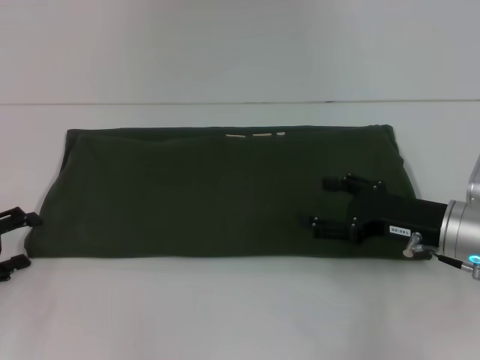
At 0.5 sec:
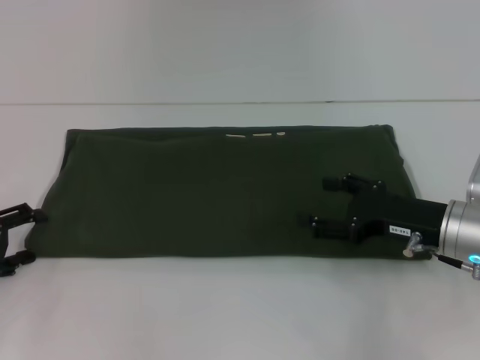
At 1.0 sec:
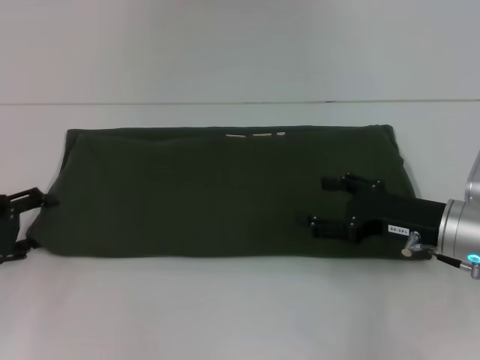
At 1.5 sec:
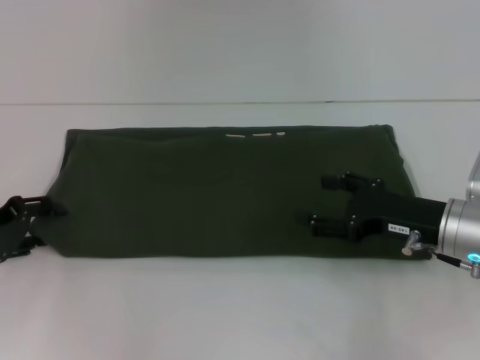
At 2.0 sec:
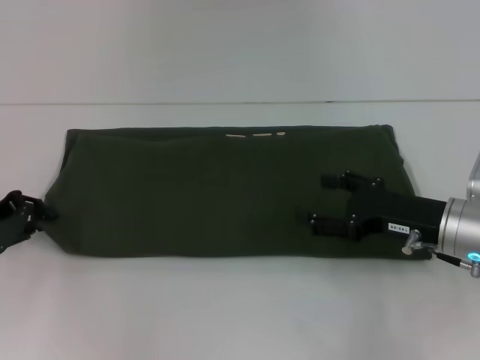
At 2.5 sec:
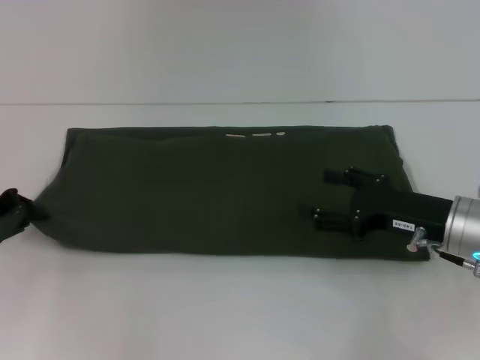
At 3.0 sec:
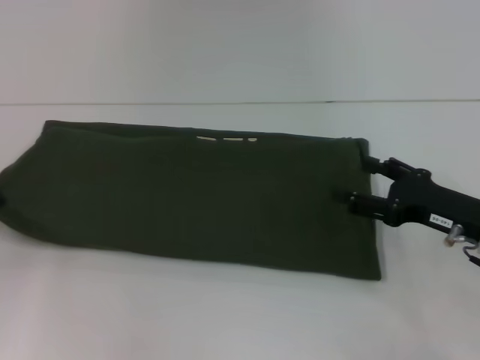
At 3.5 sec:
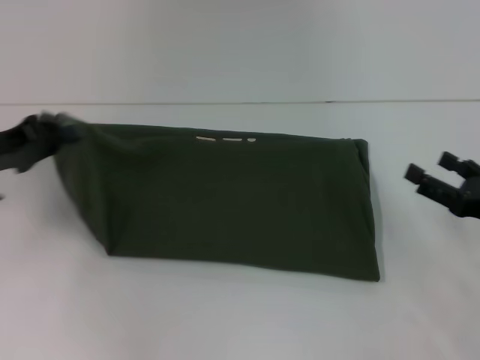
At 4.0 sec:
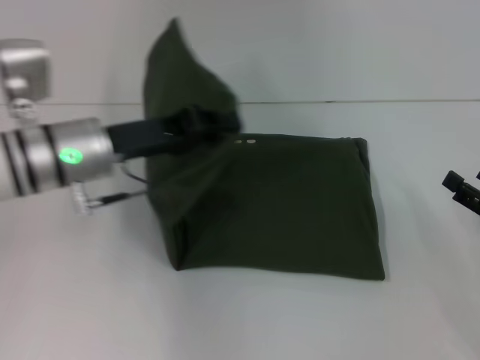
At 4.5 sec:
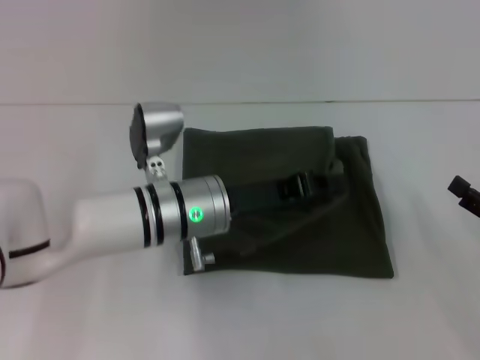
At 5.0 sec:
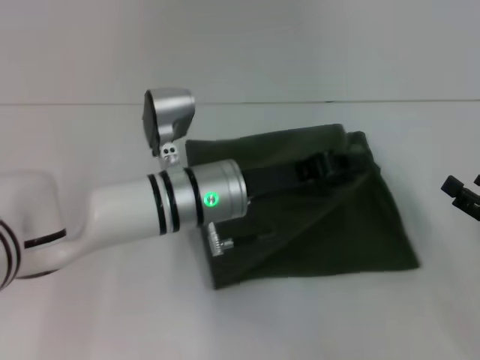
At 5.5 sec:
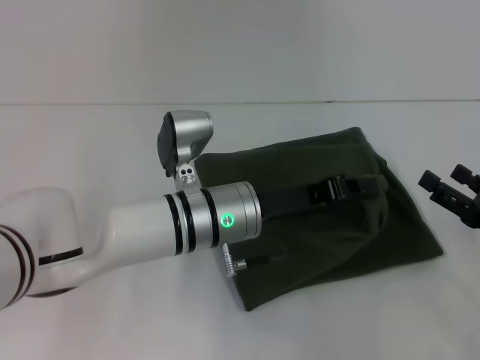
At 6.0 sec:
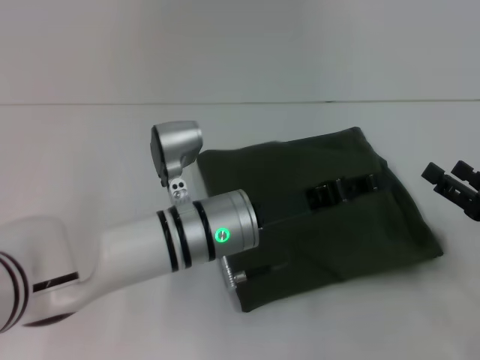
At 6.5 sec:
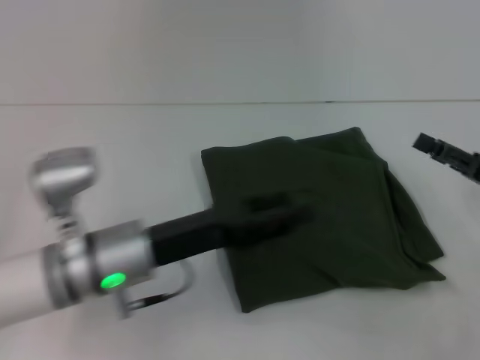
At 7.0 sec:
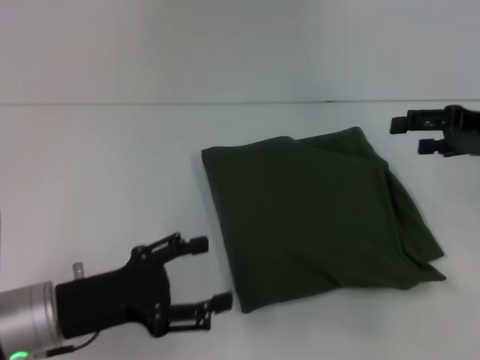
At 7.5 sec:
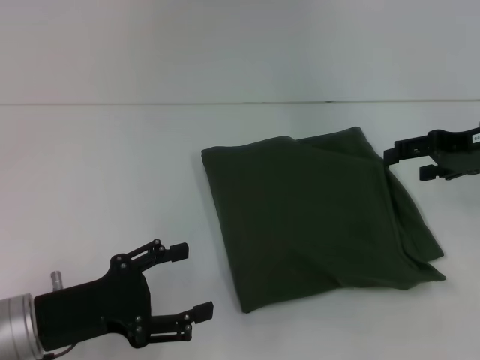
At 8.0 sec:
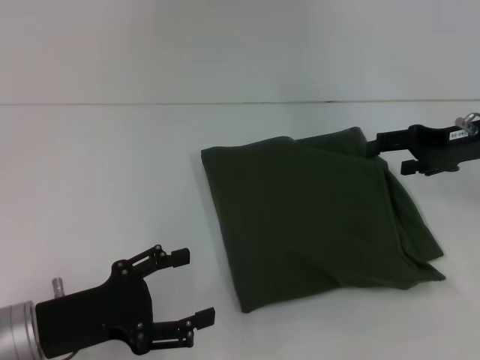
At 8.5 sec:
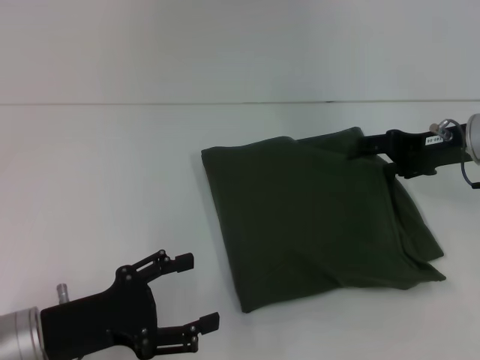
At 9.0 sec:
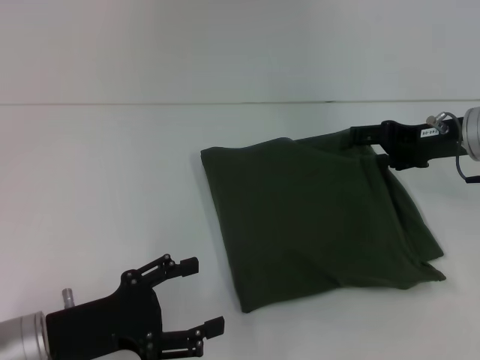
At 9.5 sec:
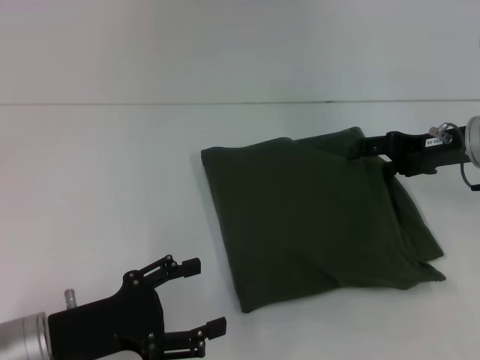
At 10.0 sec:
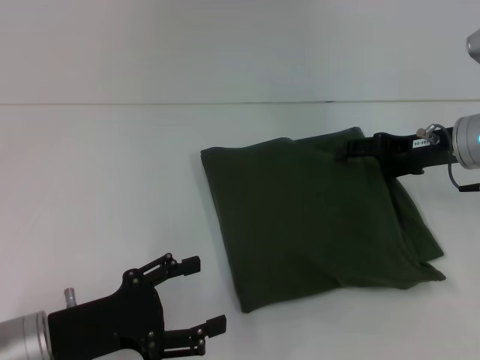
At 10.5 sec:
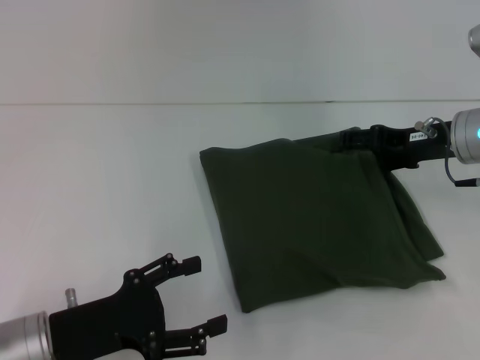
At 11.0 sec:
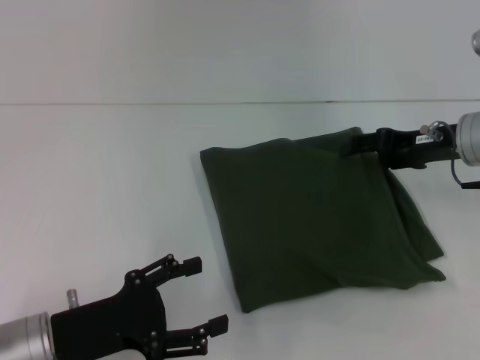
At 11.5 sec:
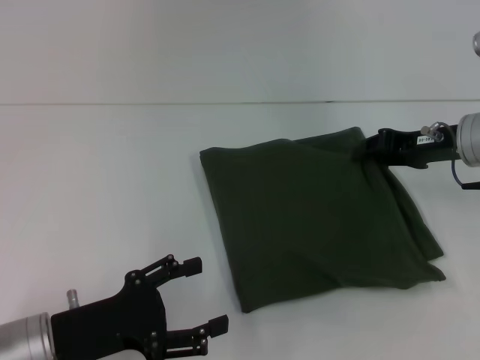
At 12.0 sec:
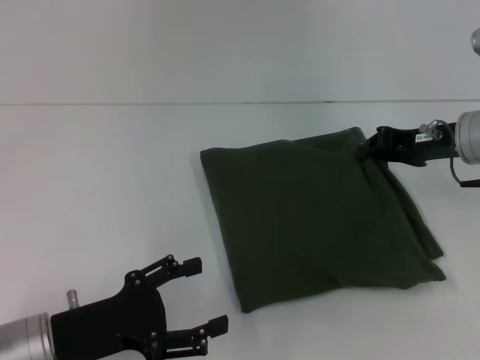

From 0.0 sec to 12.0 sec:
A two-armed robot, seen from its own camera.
Step, from 0.0 sec to 6.0 sec: Fold the clothes with your left hand.
From 0.0 sec to 2.0 sec: The left gripper changes place by about 5 cm, and closes its fingers.
From 2.0 sec to 4.0 sec: The left gripper goes approximately 15 cm to the right, and closes. Meanwhile the right gripper moves to the right and backward, some 15 cm.
From 4.0 sec to 6.0 sec: The left gripper is displaced to the right and downward by approximately 15 cm.
From 6.0 sec to 8.0 sec: The left gripper travels to the left and backward by about 20 cm, and opens; the right gripper moves forward and upward, roughly 15 cm.
From 8.0 sec to 10.0 sec: The grippers stay close to where they were, moving slightly.
From 10.0 sec to 12.0 sec: The right gripper closes its fingers.

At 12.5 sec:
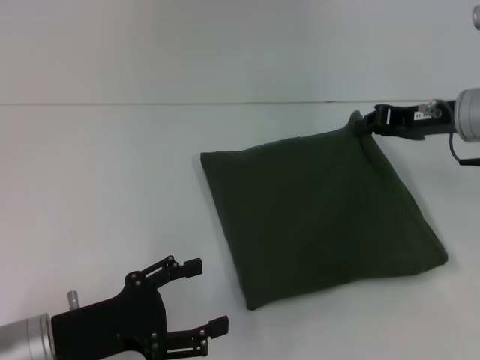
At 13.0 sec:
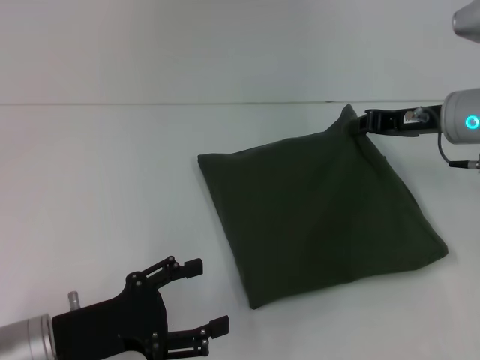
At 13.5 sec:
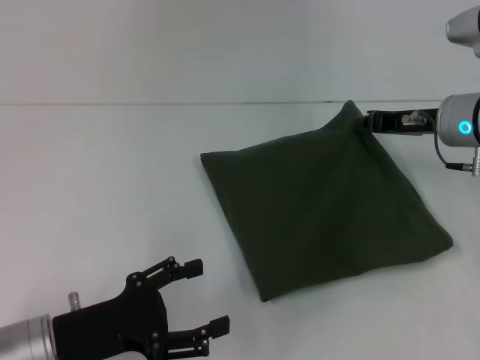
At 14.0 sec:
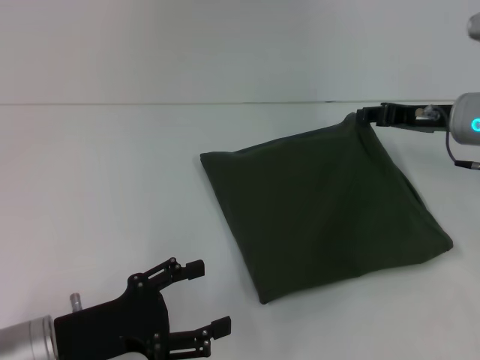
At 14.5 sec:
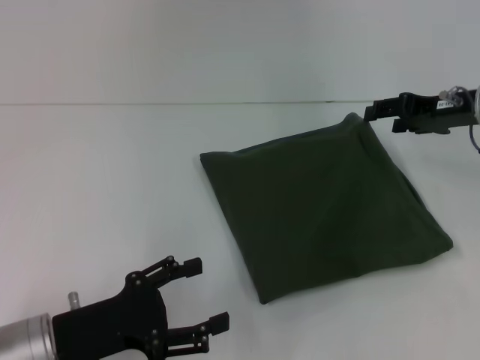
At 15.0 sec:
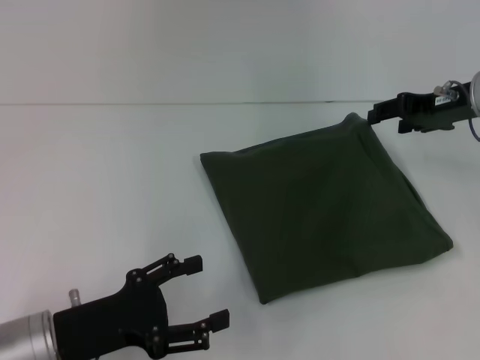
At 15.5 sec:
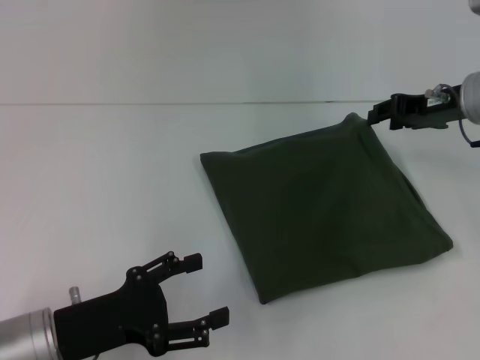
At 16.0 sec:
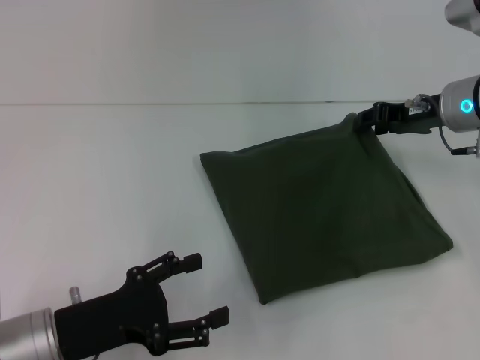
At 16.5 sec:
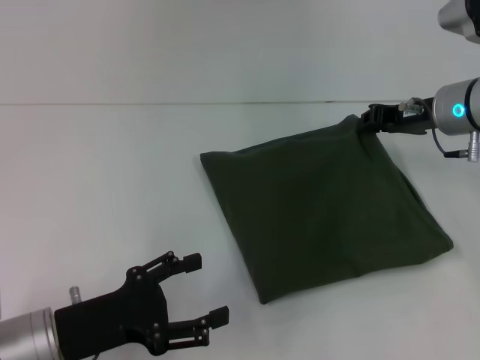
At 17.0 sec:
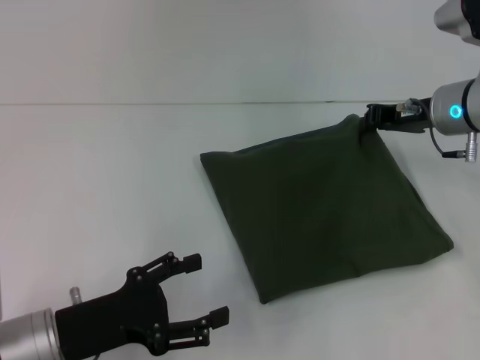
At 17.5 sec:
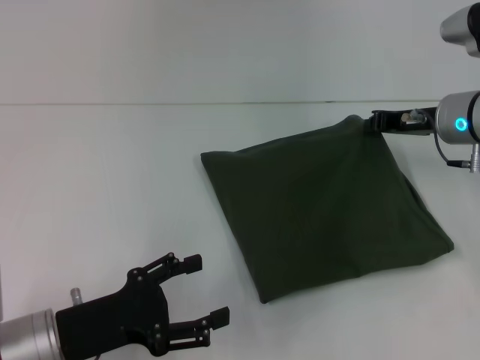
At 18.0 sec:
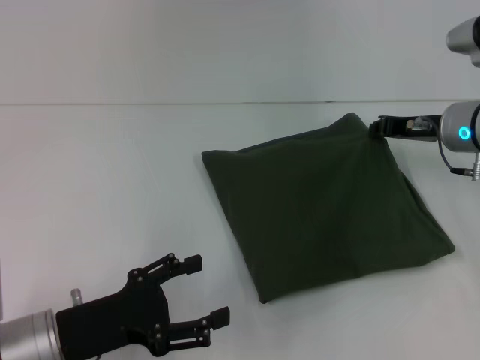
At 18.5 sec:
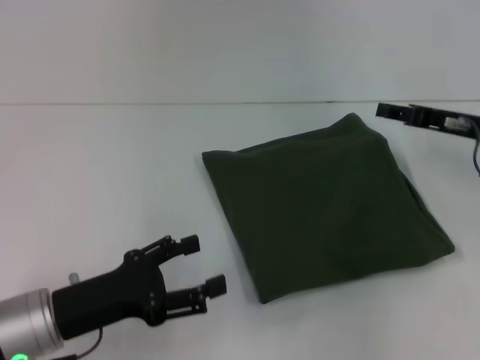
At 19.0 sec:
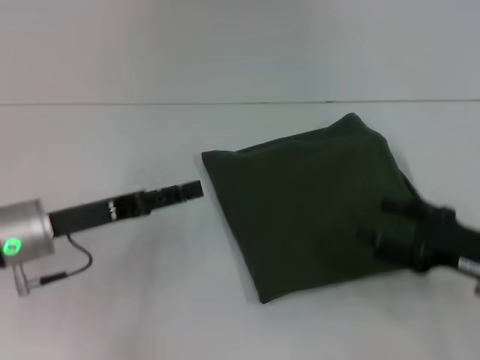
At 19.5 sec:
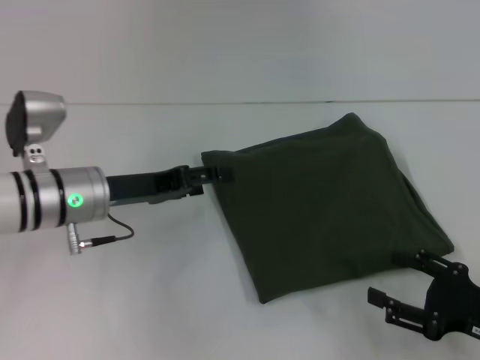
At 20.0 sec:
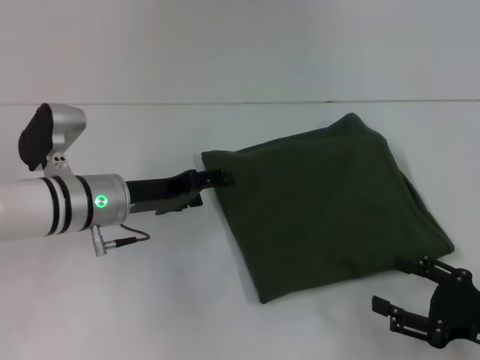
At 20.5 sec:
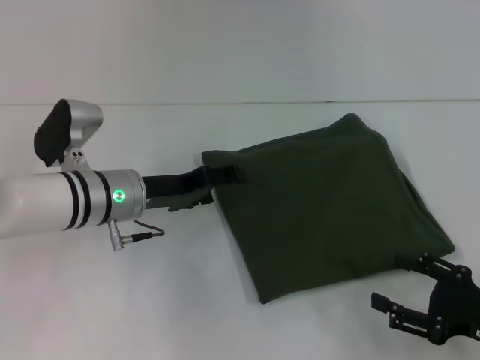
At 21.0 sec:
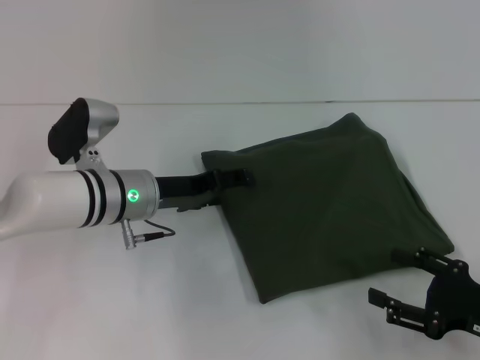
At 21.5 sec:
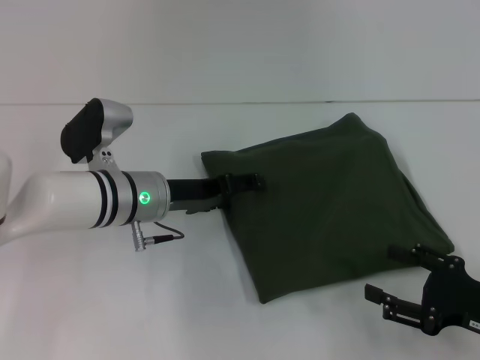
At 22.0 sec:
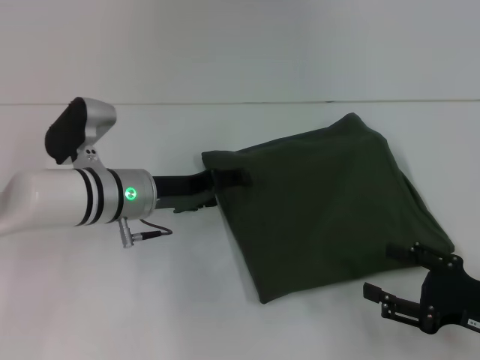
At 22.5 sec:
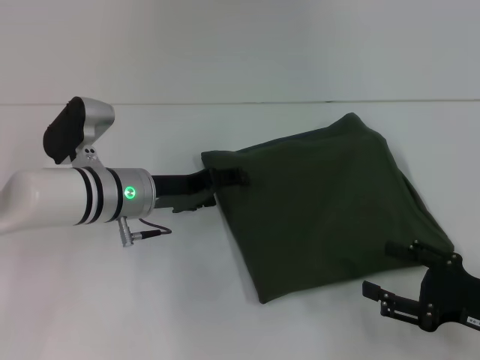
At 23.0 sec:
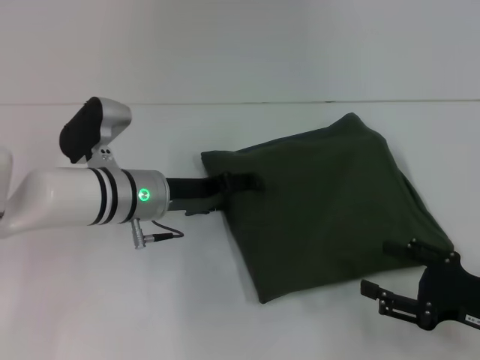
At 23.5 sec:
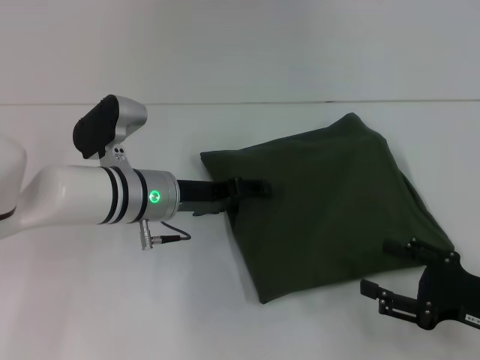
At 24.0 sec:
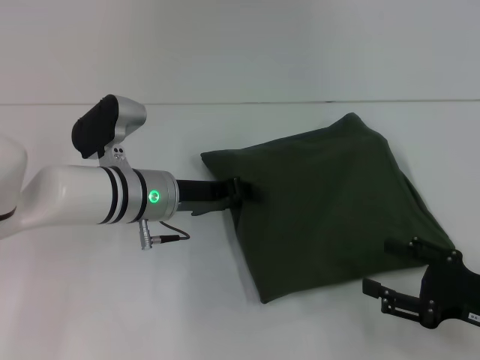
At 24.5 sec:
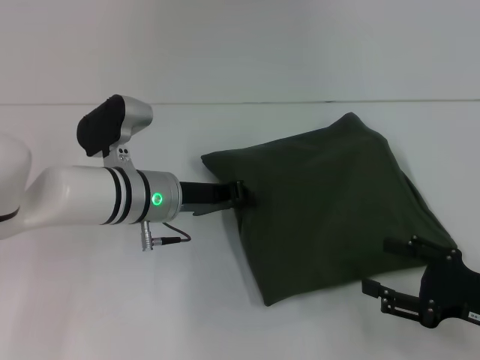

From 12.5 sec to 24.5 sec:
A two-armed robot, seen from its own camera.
From 12.5 sec to 14.5 sec: The right gripper opens its fingers.
From 14.5 sec to 16.5 sec: The right gripper closes its fingers.
From 16.5 sec to 18.5 sec: The right gripper shifts by roughly 5 cm.
From 18.5 sec to 20.5 sec: The right gripper goes about 20 cm backward and downward, and opens its fingers, while the left gripper goes some 15 cm forward and to the right.
From 20.5 sec to 22.5 sec: The grippers move only a little.
From 22.5 sec to 24.5 sec: The left gripper closes.

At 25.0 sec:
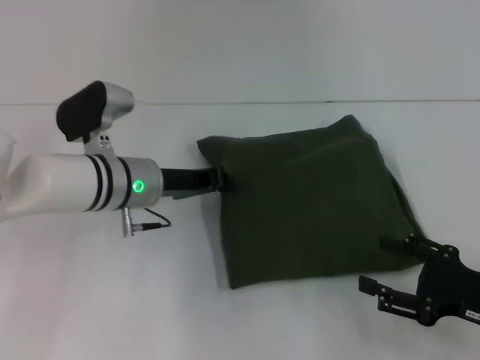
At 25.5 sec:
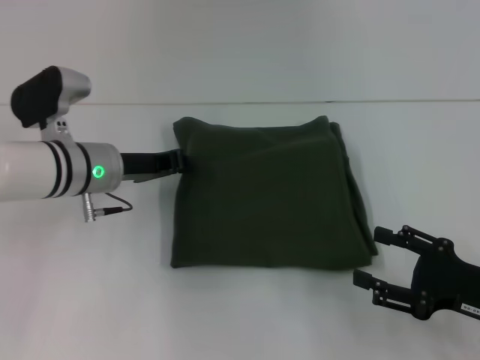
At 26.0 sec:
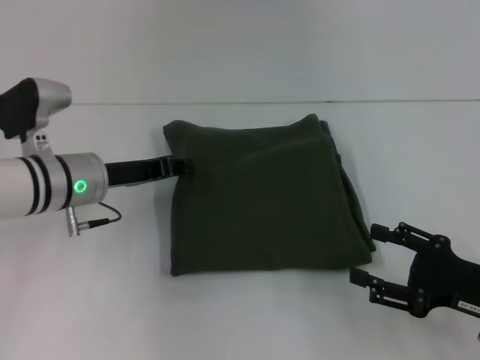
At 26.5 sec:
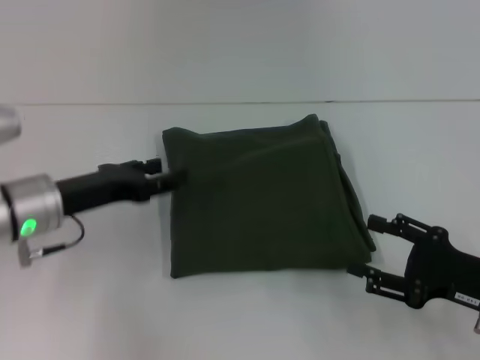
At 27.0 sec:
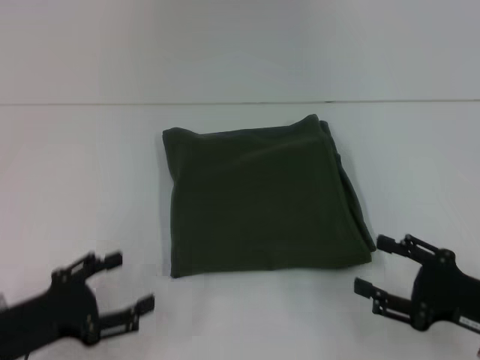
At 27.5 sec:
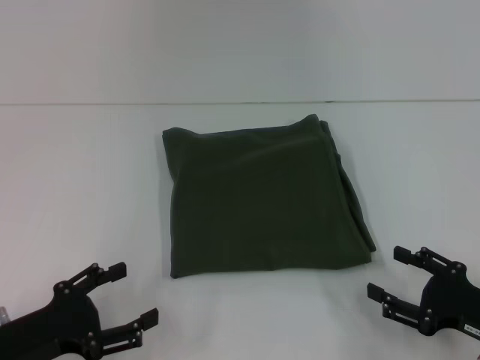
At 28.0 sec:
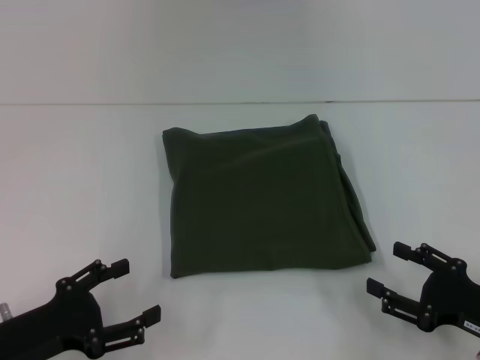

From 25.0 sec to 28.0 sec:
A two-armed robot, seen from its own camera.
From 25.0 sec to 26.5 sec: The left gripper heads to the left and backward, covering approximately 10 cm, and opens its fingers.
From 26.5 sec to 28.0 sec: The left gripper is displaced backward and downward by approximately 15 cm, and opens.
